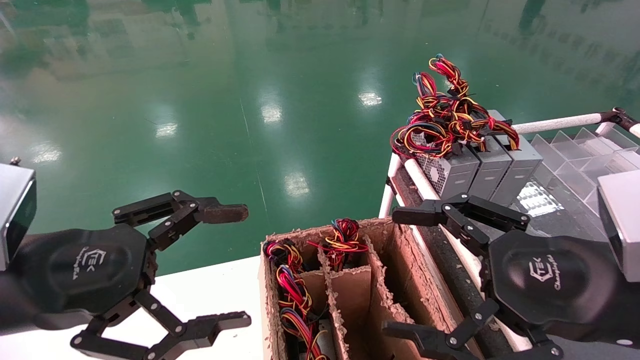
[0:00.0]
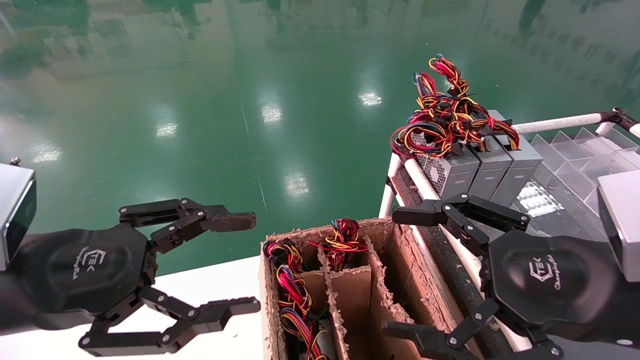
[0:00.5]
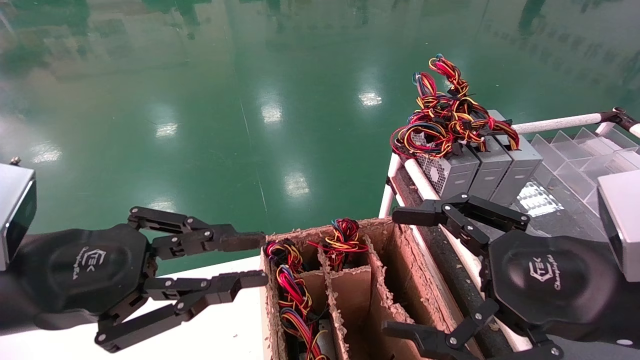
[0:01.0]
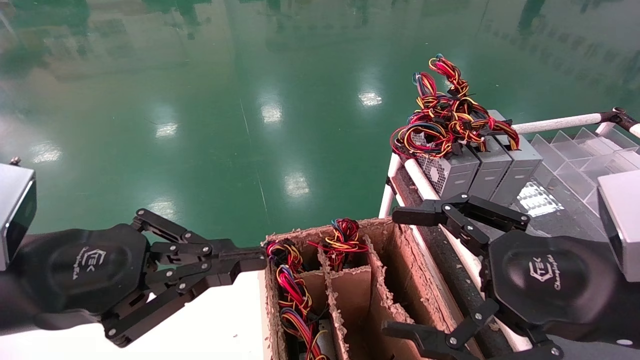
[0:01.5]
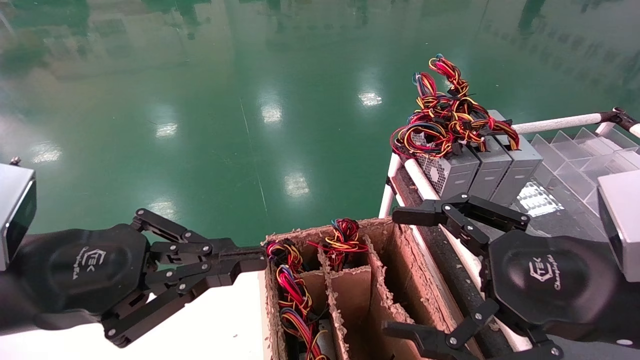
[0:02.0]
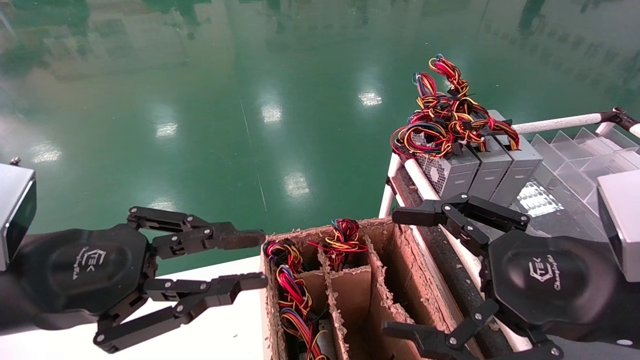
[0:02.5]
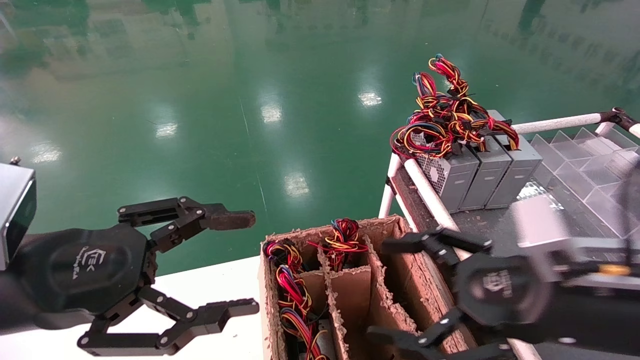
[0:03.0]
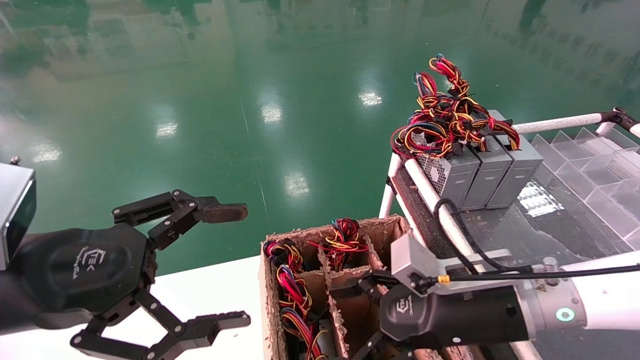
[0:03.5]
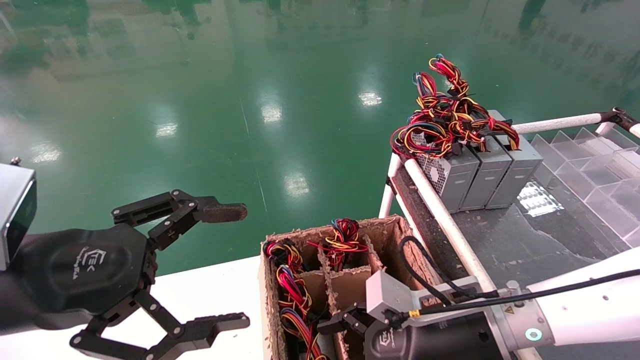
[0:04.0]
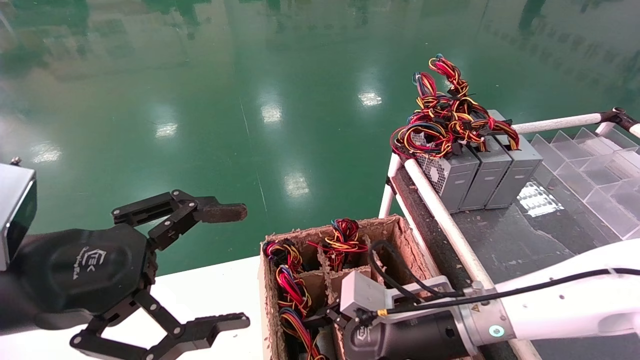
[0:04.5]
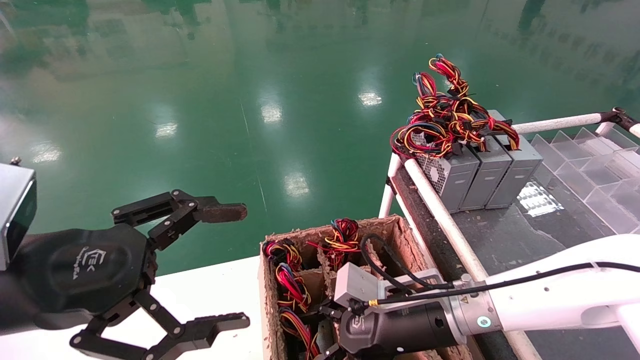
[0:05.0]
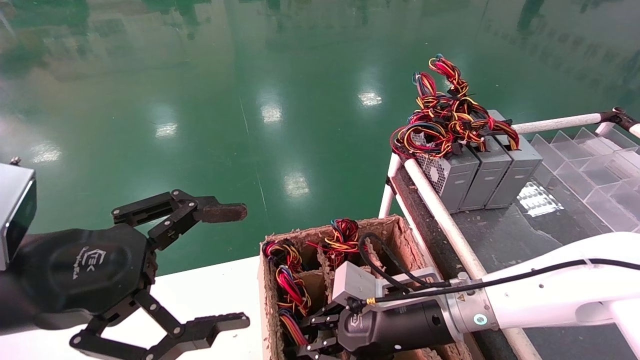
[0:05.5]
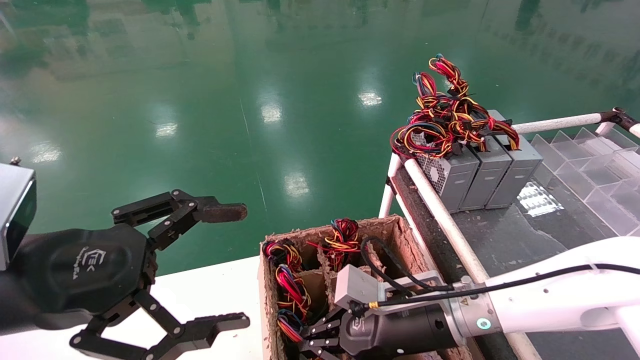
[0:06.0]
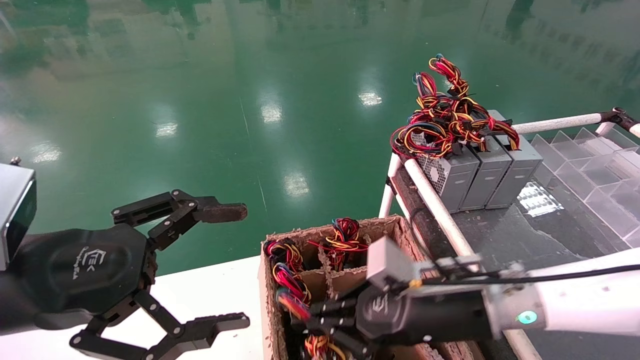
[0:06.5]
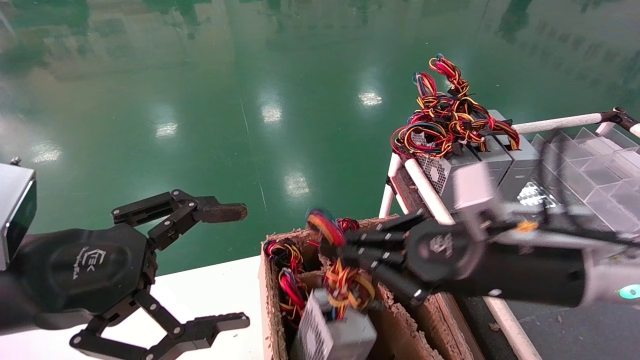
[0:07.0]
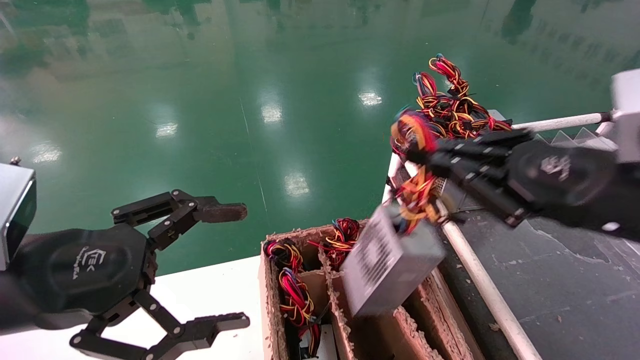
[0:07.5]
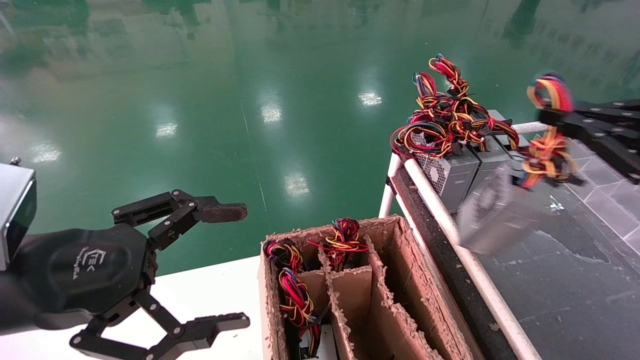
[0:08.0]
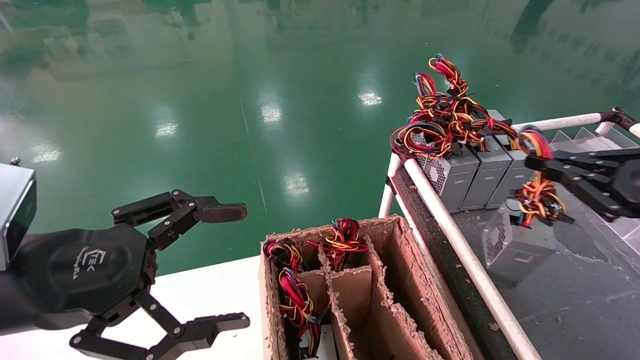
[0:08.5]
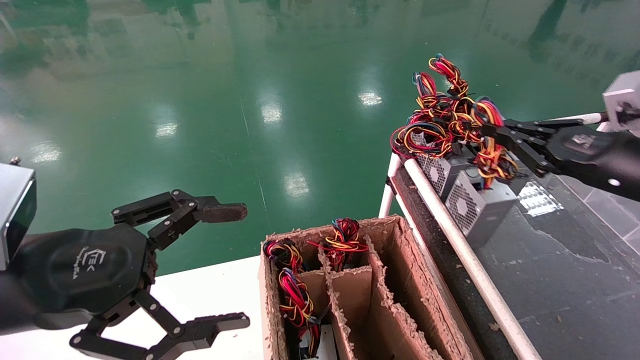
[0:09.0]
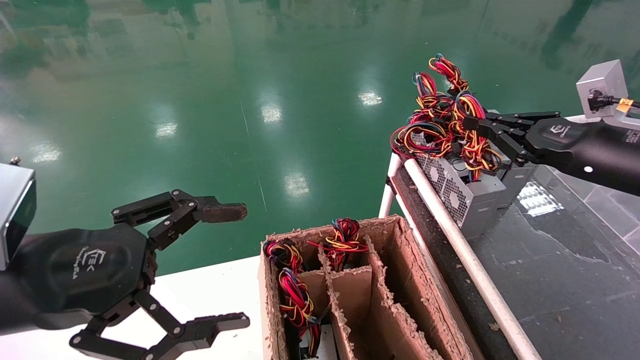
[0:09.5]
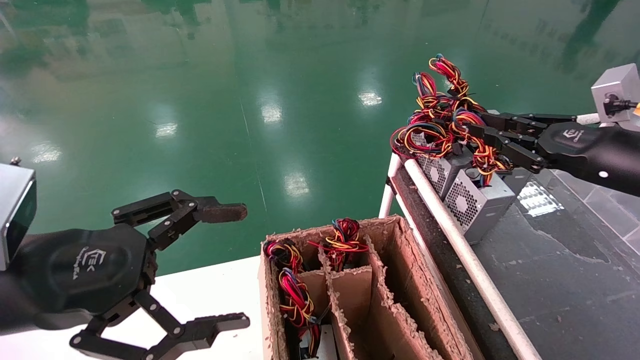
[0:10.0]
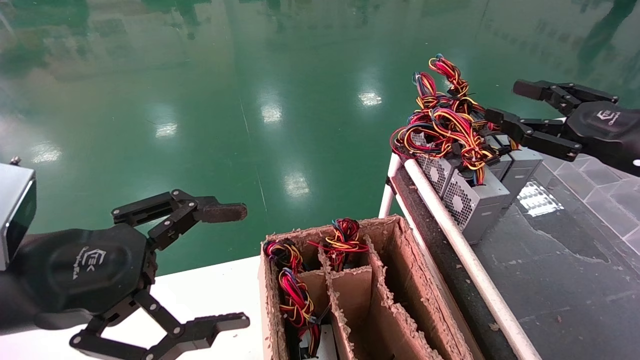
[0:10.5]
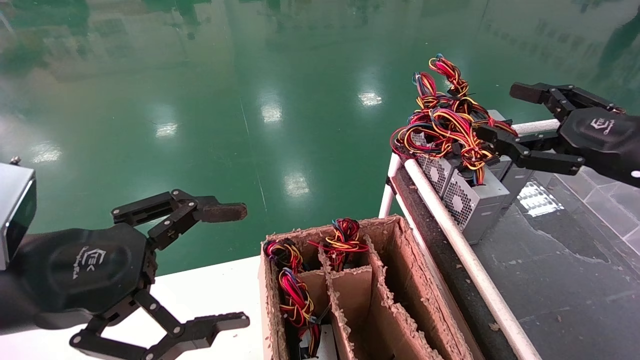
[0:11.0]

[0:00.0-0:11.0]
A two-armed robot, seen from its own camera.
Step, 0:02.0 to 0:05.5: Grab and lift the power supply from the large box.
Step, 0:06.0 to 0:09.5: Place the power supply on the operating table.
0:00.0 to 0:02.0: The left gripper closes.
0:02.0 to 0:03.5: The left gripper opens up, while the right gripper is displaced forward, downward and to the left by about 15 cm.
0:03.5 to 0:05.5: The right gripper moves to the left, some 5 cm, and closes its fingers.
0:05.5 to 0:07.5: The right gripper heads upward, to the right and backward, covering approximately 25 cm.
0:07.5 to 0:09.0: The right gripper moves to the right and forward, approximately 10 cm.
0:09.0 to 0:11.0: The right gripper opens.
